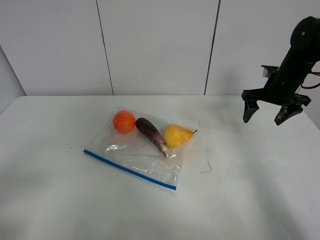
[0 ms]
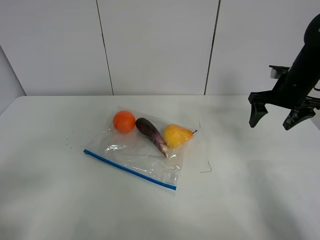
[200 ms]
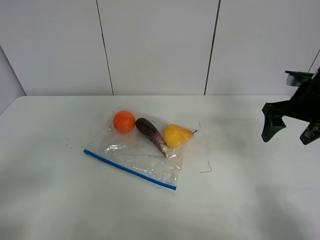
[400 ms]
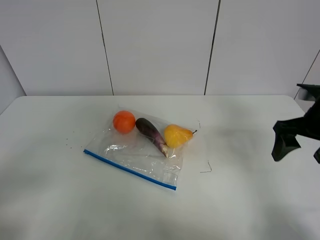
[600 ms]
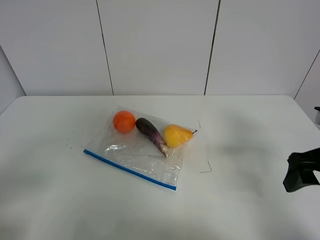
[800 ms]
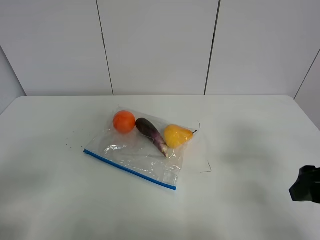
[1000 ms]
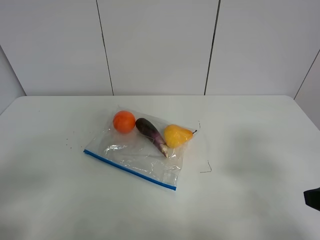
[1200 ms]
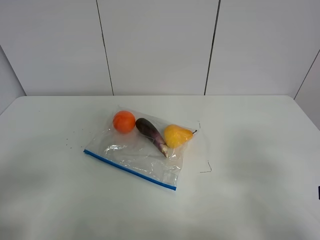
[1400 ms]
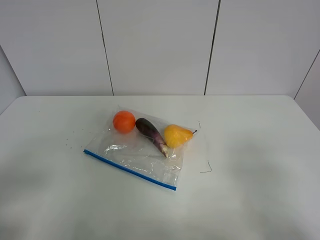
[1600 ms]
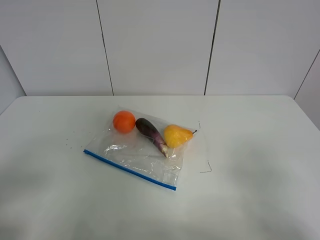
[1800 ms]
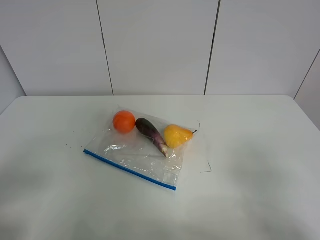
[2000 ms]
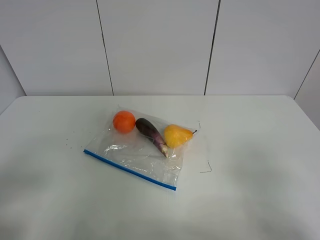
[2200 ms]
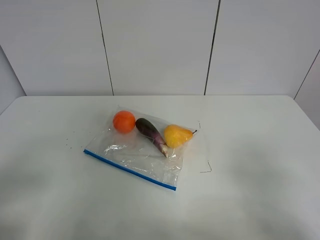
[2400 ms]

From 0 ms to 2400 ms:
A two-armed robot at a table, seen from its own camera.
From 0 ms to 1200 ms: The right gripper goes roughly 30 cm backward.

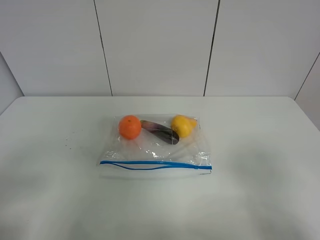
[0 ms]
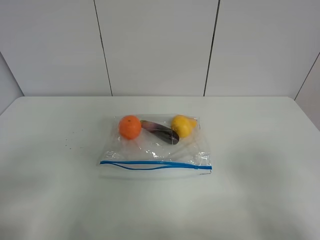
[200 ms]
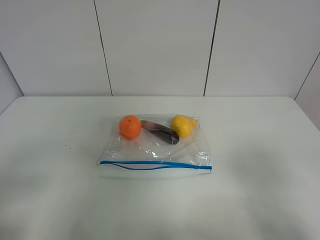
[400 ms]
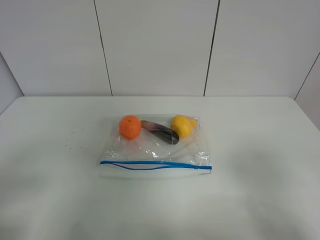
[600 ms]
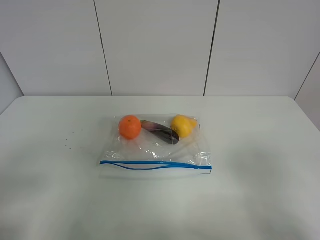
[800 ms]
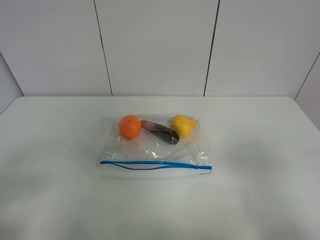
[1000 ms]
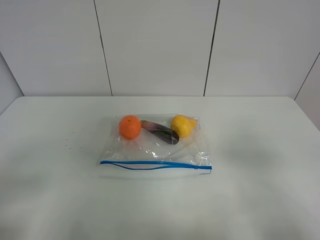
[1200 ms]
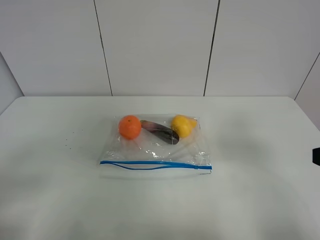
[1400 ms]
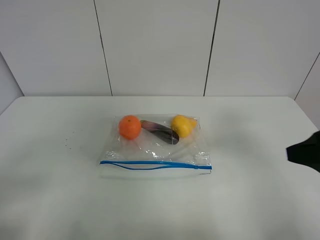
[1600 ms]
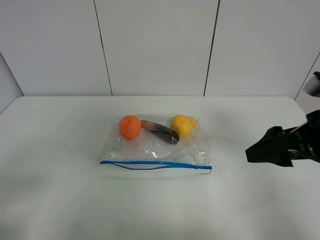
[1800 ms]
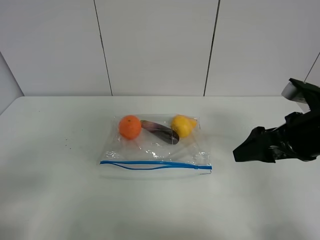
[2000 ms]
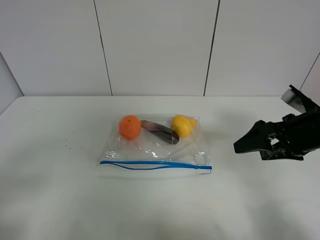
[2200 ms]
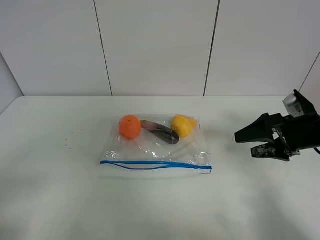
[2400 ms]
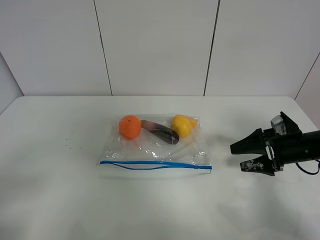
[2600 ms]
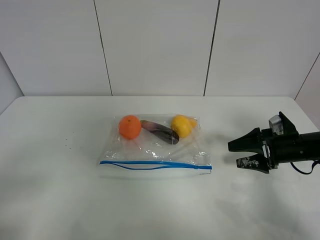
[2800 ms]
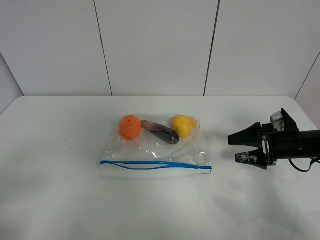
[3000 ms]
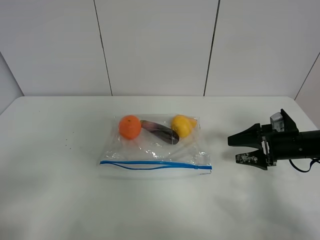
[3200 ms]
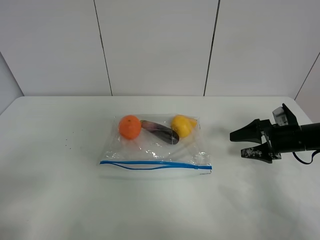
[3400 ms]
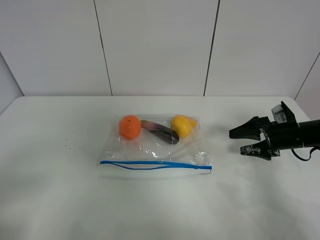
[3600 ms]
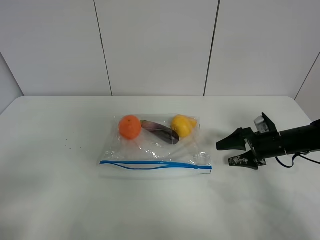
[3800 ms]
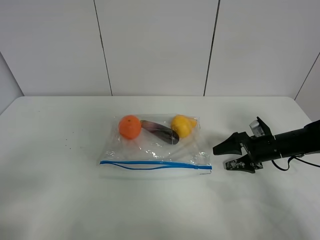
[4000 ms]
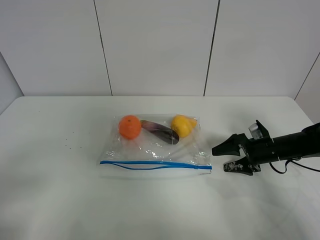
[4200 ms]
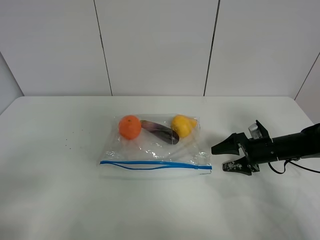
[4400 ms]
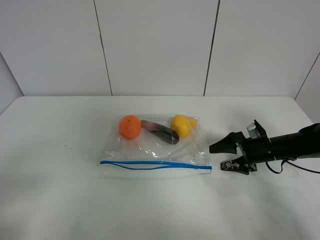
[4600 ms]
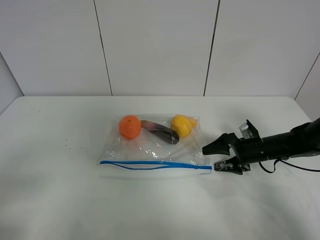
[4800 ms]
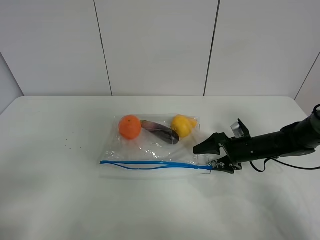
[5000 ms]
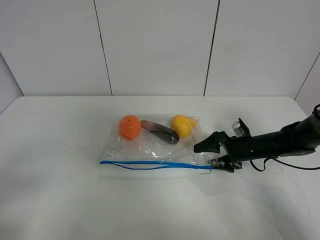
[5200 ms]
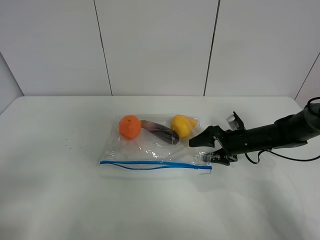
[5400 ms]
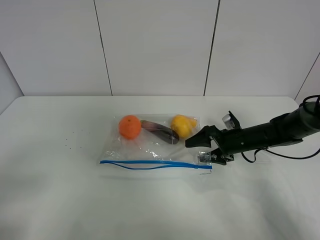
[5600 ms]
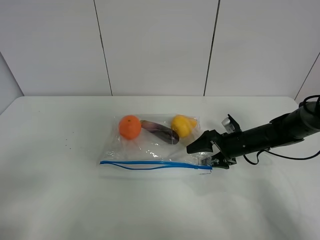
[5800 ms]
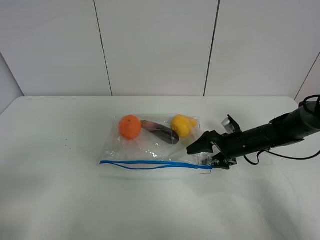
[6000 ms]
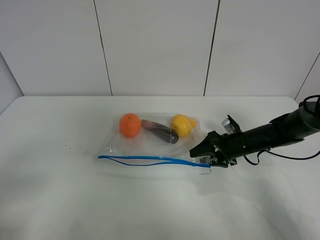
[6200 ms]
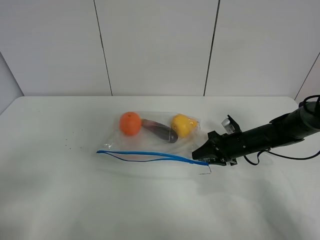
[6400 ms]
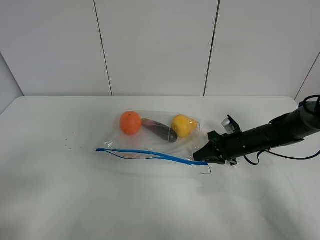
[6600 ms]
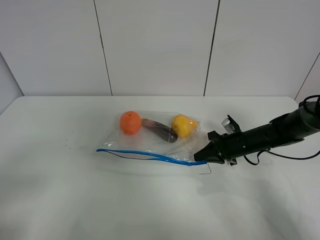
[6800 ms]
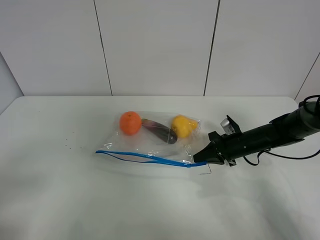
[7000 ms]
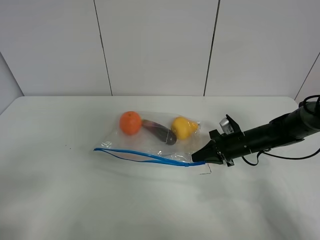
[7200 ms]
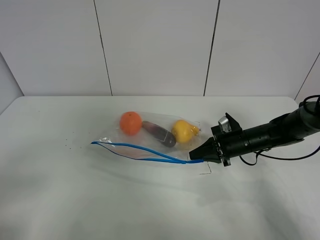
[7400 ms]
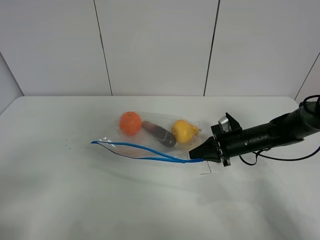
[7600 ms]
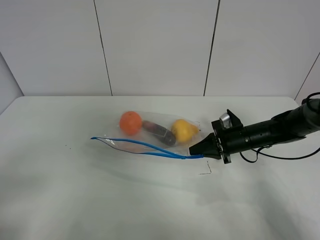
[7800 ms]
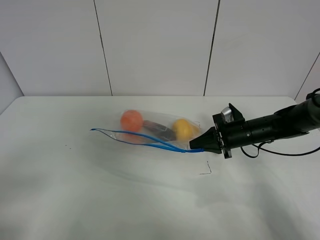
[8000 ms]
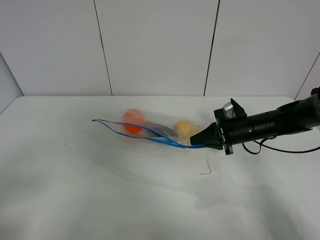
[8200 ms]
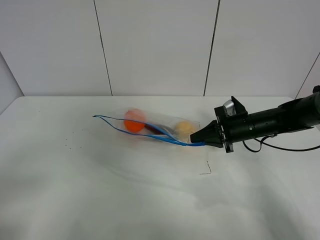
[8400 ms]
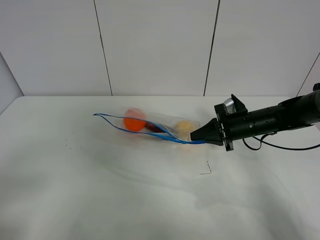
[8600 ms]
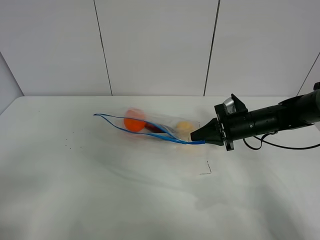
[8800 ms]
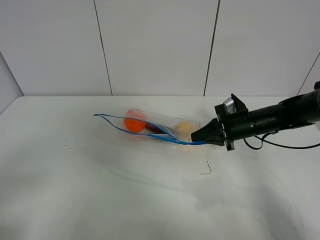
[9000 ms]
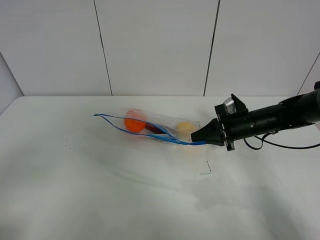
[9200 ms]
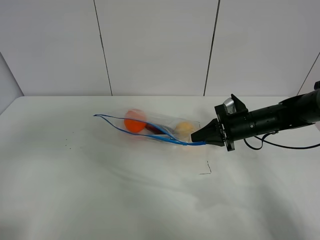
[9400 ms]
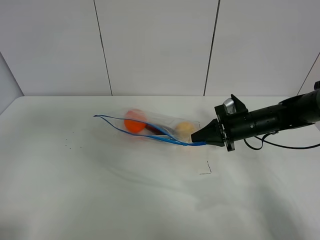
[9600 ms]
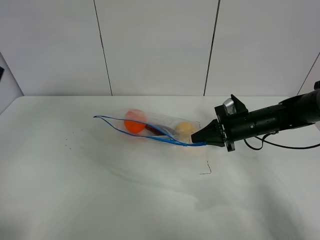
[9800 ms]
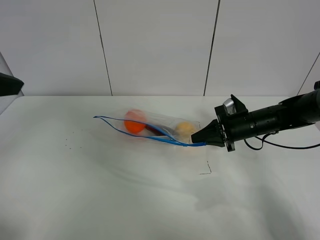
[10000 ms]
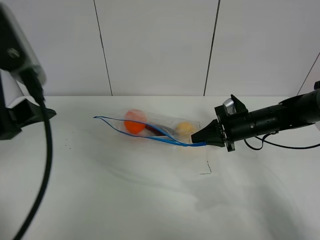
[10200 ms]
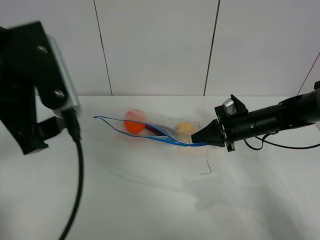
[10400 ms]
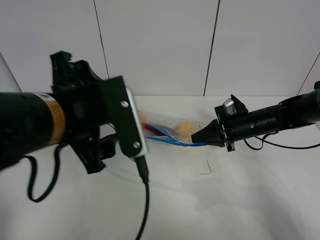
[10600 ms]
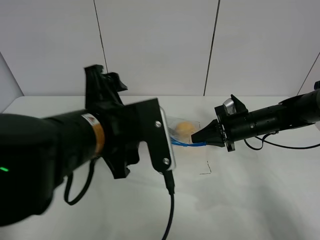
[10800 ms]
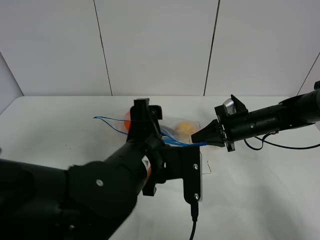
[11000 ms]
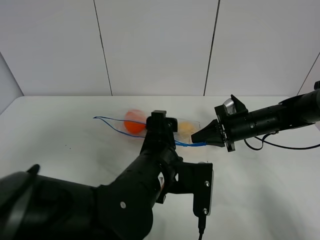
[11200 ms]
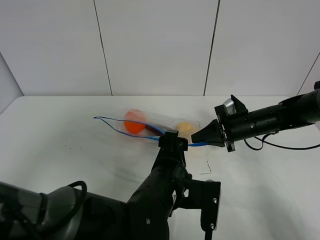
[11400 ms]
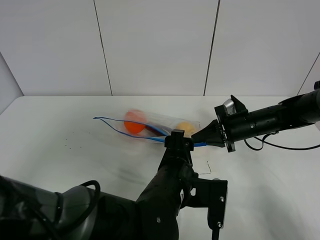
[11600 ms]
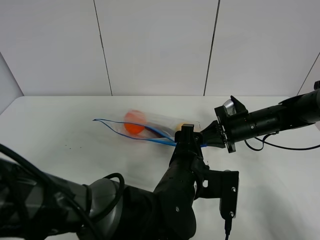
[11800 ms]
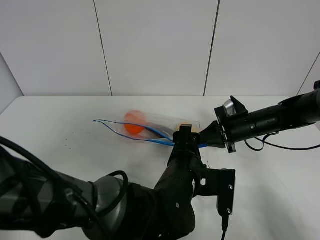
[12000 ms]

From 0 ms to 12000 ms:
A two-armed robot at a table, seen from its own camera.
Step, from 0 ms to 6800 ms: Grasp the fruit bag with right gripper.
Step, from 7000 ms to 8800 ms: Lift the fruit bag with your right gripper.
From 0 ms to 1600 ms: The right gripper heads forward, covering roughly 15 cm.
From 1600 ms to 3000 ms: The right gripper goes approximately 25 cm downward and forward.
From 3000 ms to 4400 ms: The right gripper goes some 5 cm downward.
From 4400 ms to 6000 ms: The right gripper is displaced to the left by some 5 cm.
From 6000 ms to 7600 ms: The right gripper closes.
From 7600 ms to 9000 ms: The right gripper moves upward, approximately 5 cm.
From 9000 ms to 10400 ms: The left gripper goes some 25 cm forward, to the right and upward.
From 10400 ms to 12000 ms: The left gripper goes about 30 cm downward and to the right.

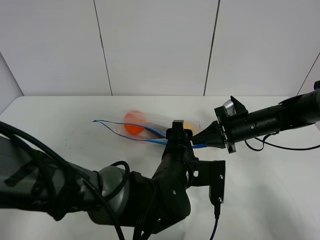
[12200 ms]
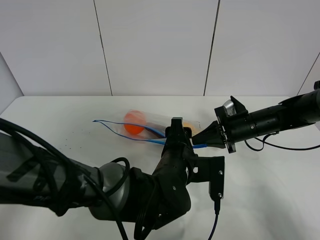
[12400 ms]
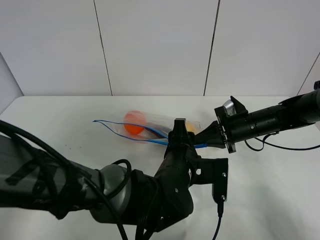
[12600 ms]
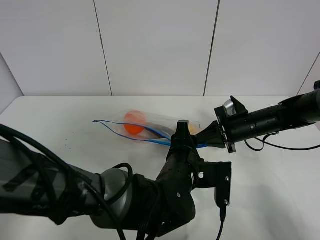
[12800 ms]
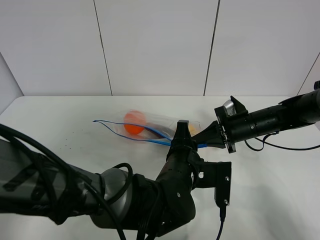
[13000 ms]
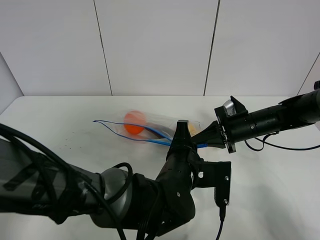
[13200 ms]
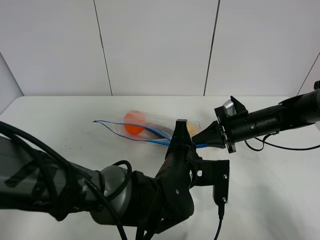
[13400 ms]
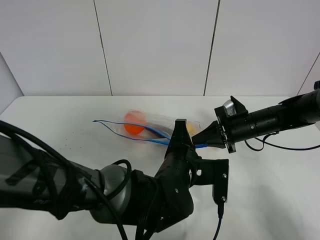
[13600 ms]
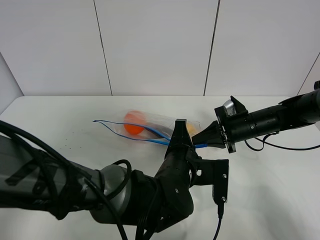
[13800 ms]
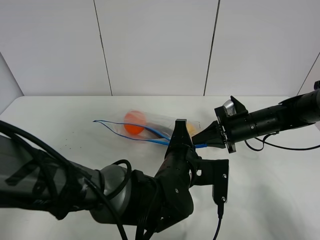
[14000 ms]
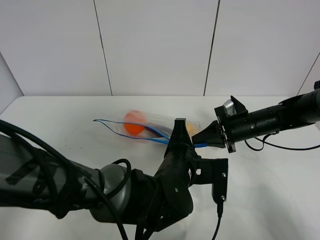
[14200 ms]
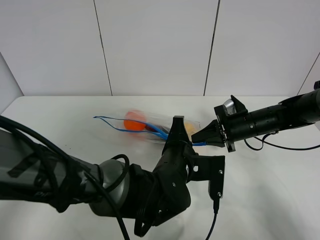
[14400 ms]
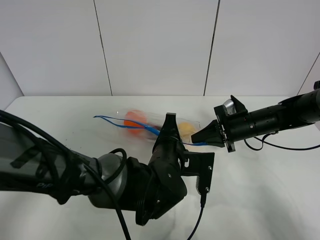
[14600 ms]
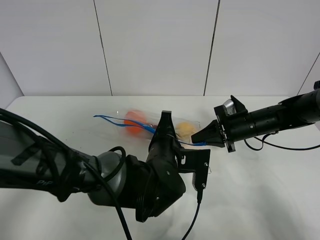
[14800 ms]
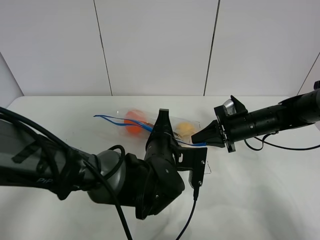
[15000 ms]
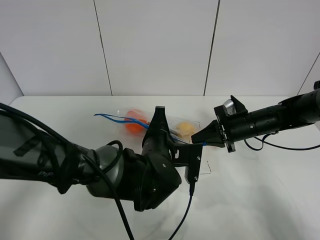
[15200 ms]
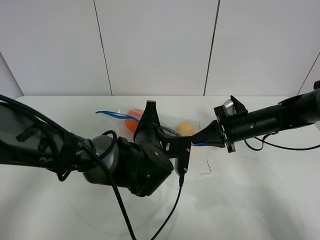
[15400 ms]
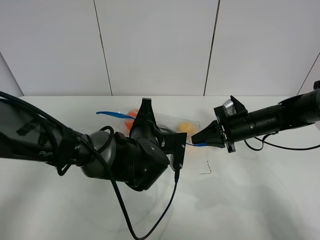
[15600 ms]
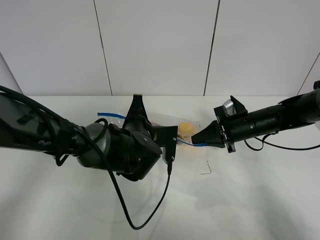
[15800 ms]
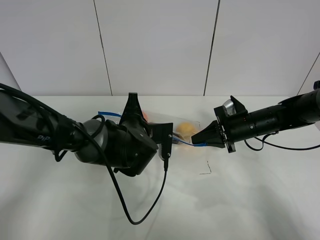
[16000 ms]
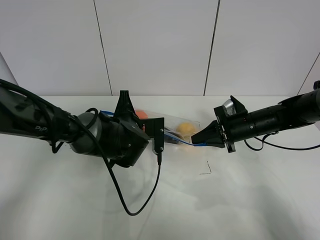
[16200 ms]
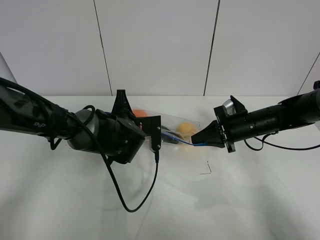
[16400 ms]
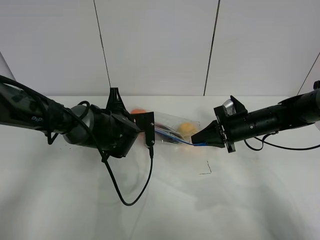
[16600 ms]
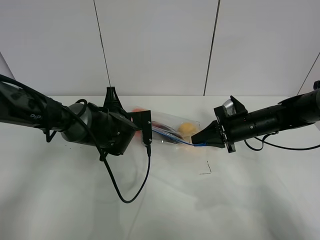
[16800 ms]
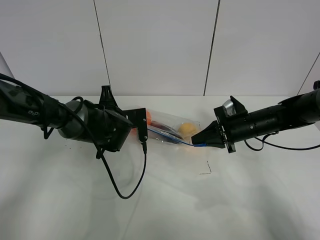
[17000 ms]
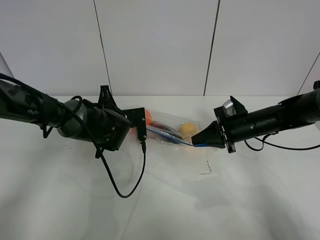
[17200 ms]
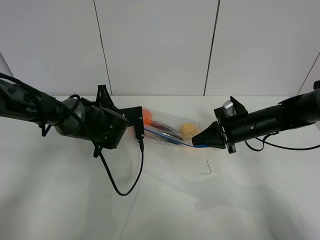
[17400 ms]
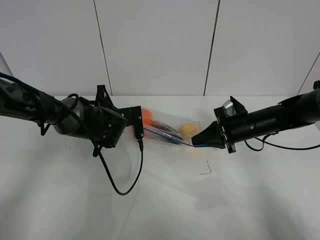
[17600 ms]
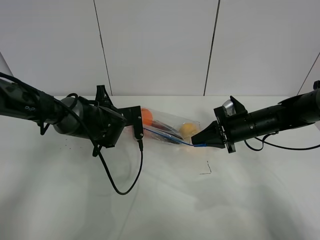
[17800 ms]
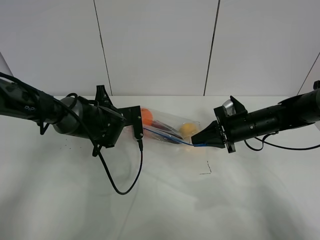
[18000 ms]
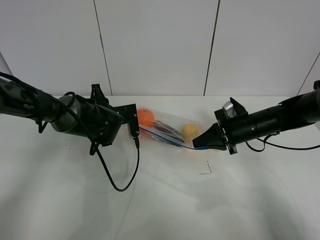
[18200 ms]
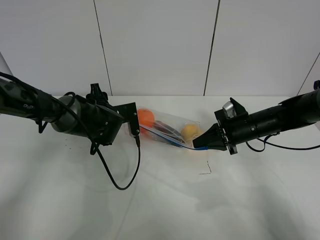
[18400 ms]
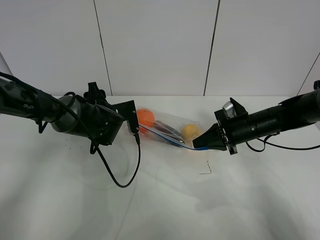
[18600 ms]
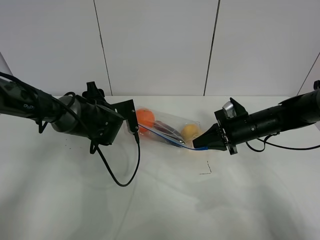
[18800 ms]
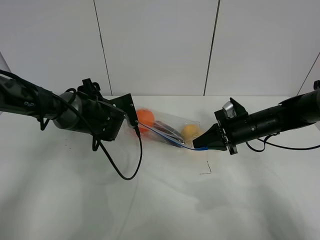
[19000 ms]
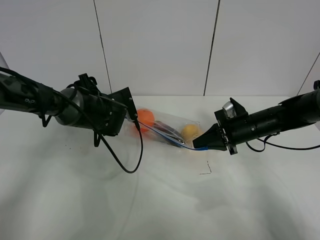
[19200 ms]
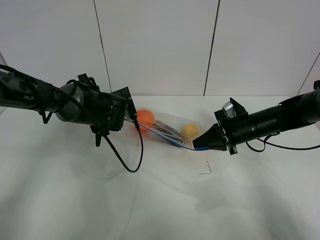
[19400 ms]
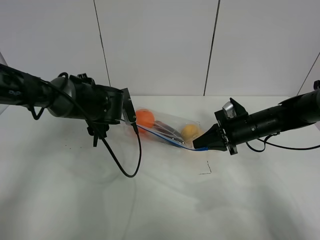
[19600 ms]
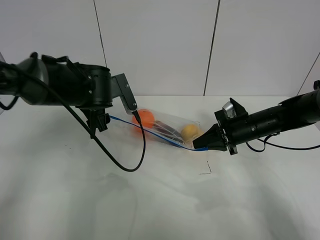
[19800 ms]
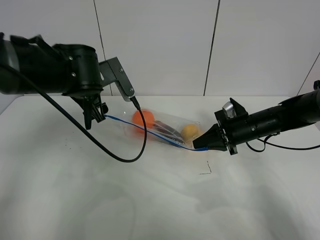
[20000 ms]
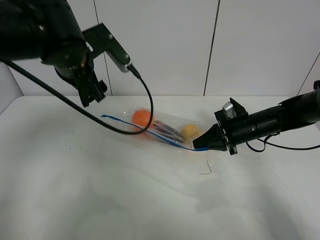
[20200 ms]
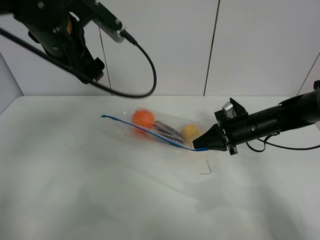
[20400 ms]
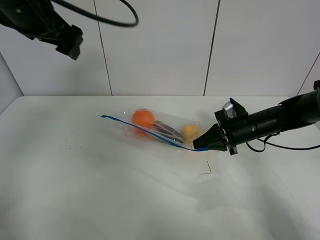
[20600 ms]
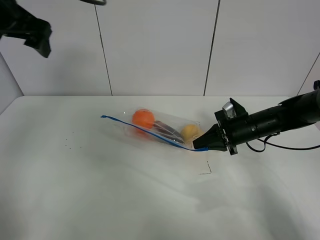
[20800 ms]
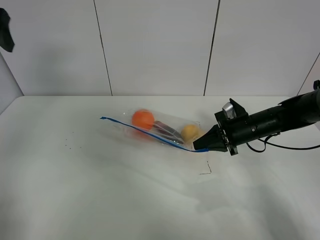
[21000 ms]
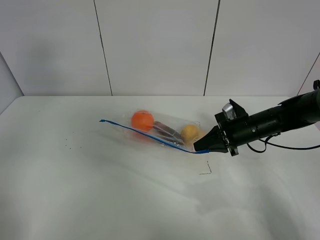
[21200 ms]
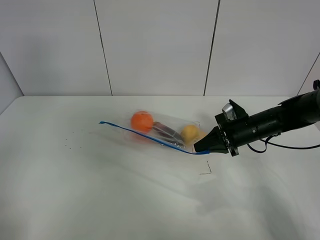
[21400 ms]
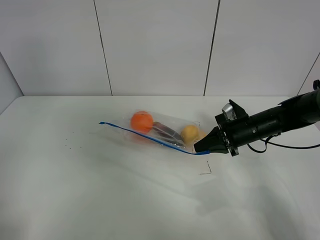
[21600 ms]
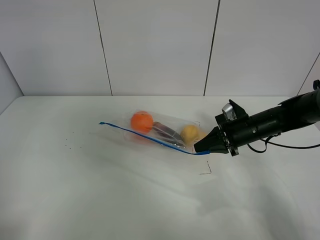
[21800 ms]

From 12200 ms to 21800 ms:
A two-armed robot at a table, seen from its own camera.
Step, from 12200 ms to 18400 ms: Pull the fruit bag with left gripper.
From 12200 ms to 13800 ms: The left gripper closes up.
From 13800 ms to 15400 ms: The left gripper shifts some 10 cm forward and to the left.
From 15400 ms to 17000 ms: The left gripper heads to the left and forward, covering roughly 10 cm.
From 17000 ms to 18600 ms: The left gripper opens up.
From 18600 ms to 20200 ms: The left gripper moves upward, roughly 20 cm.
From 20200 ms to 21800 ms: The left gripper moves to the left, upward and backward, approximately 30 cm.
